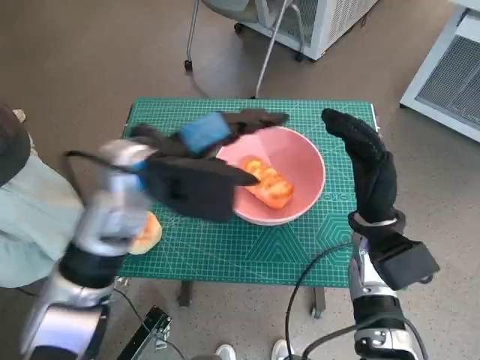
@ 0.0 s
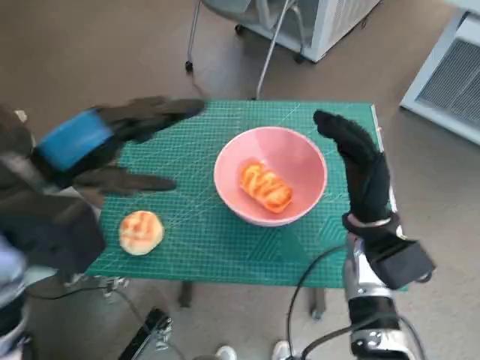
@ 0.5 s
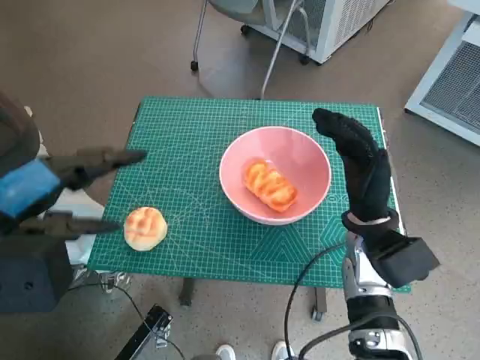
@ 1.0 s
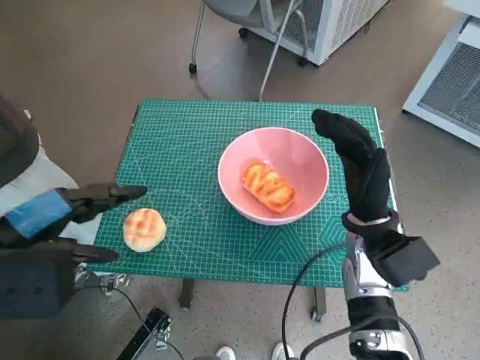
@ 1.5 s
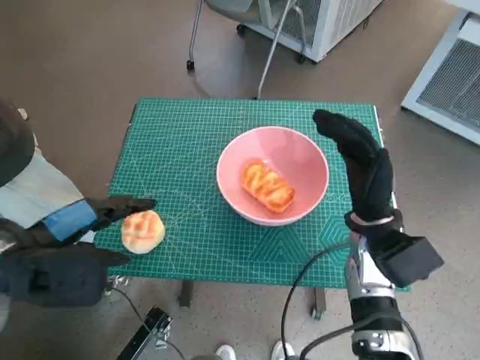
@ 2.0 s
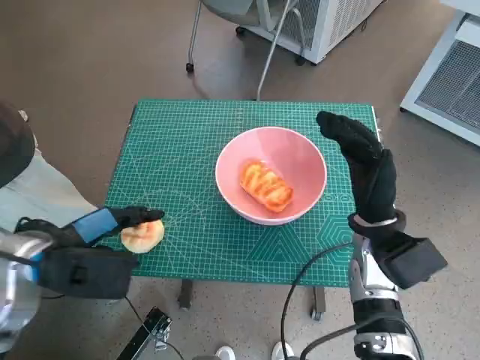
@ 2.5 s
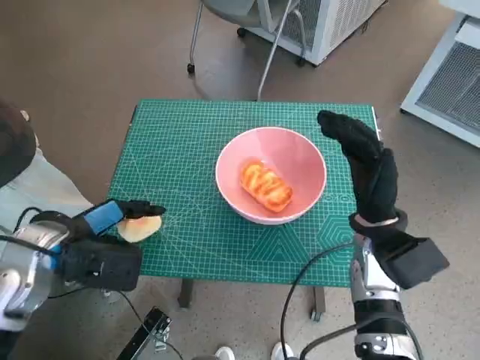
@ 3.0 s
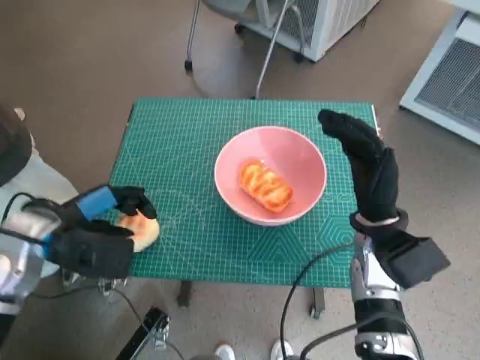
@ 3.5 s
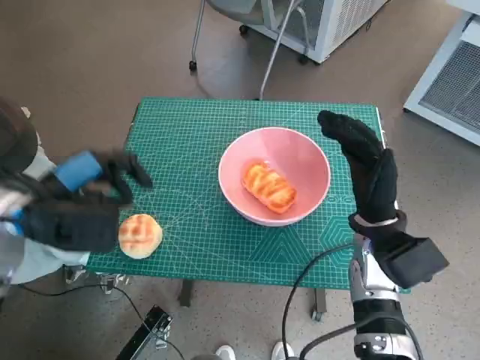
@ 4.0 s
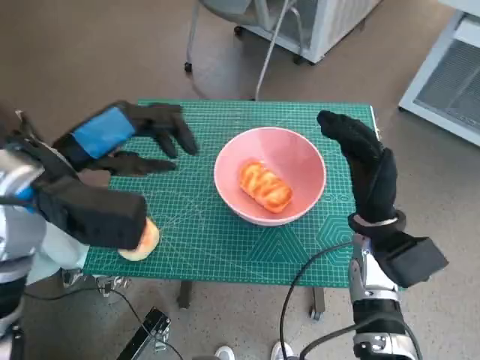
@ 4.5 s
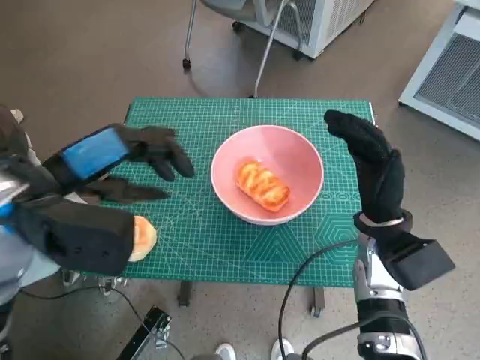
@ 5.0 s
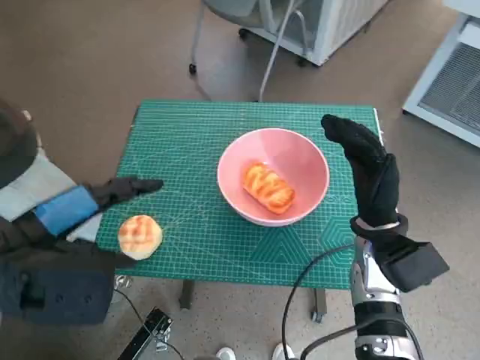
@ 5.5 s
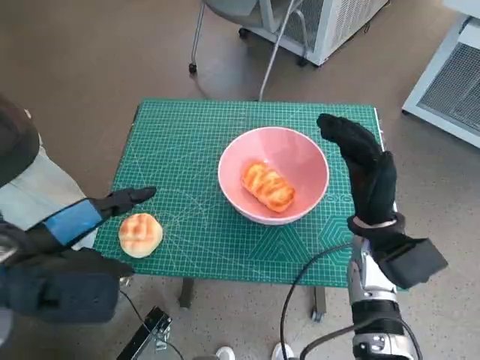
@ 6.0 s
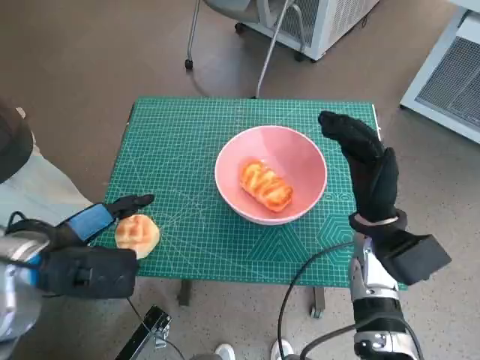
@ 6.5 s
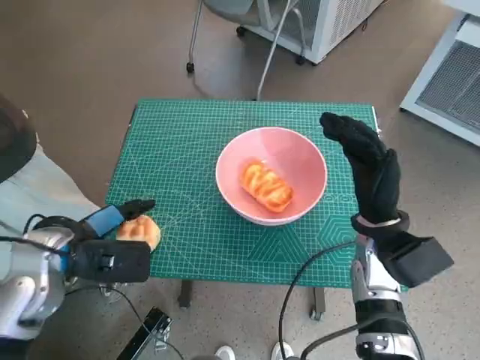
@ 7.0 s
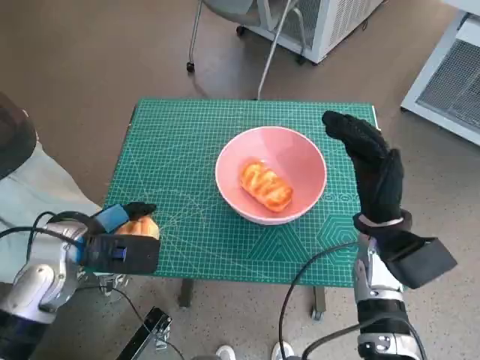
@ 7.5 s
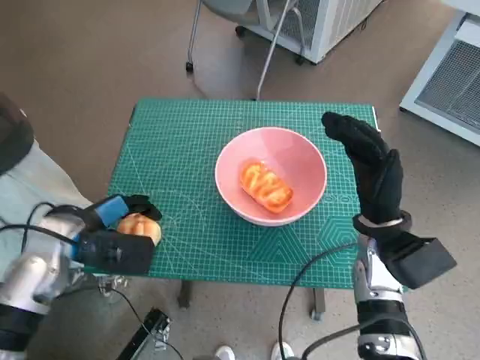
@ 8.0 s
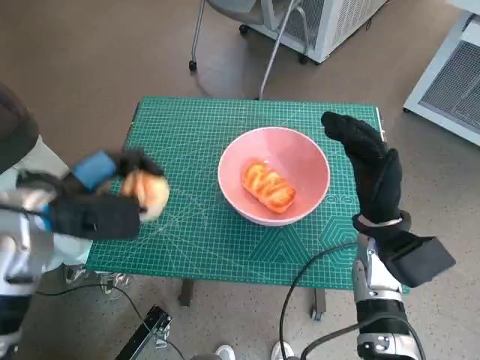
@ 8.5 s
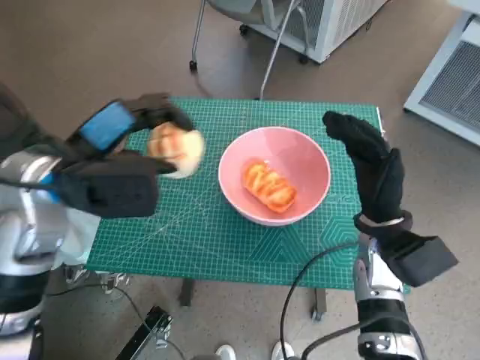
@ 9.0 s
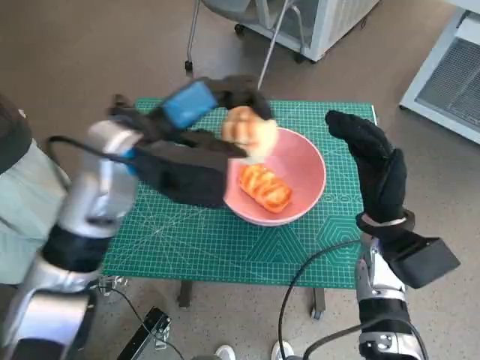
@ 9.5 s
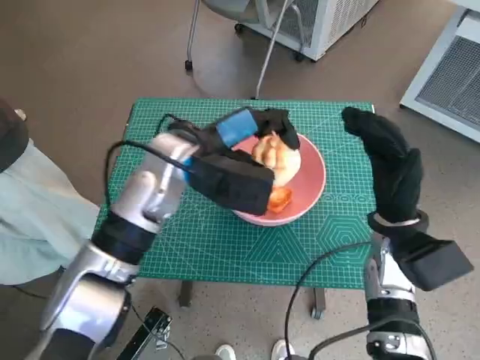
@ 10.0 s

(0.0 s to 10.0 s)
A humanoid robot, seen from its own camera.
Task of the whole recording: Push the bowl to the center of the table and put the bread into the bowl.
Step, 0.5 s - 7.5 s: Grasp the round bread with left hand.
0.0 s - 2.0 s: The left hand moves to the left and backward, some 15 cm.
2.0 s - 4.0 s: The left hand heads forward, covering about 5 cm.
4.0 s - 6.0 s: The left hand heads backward, covering approximately 5 cm.
6.0 s - 8.0 s: The left hand travels downward and forward by roughly 15 cm.
8.0 s - 10.0 s: The left hand goes some 20 cm to the right, upward and forward.

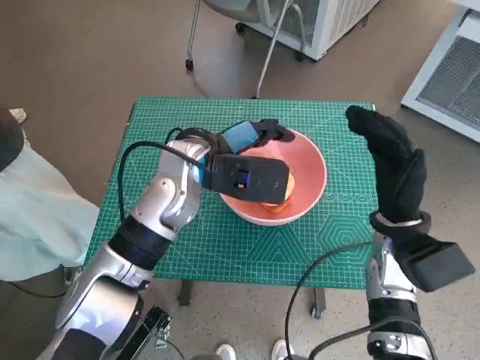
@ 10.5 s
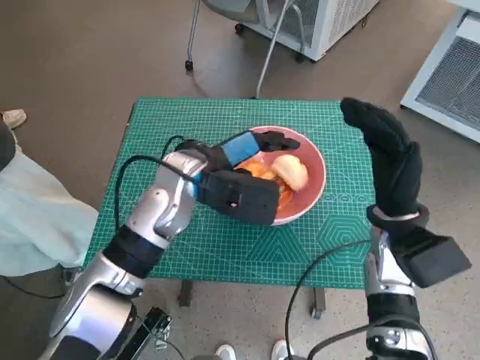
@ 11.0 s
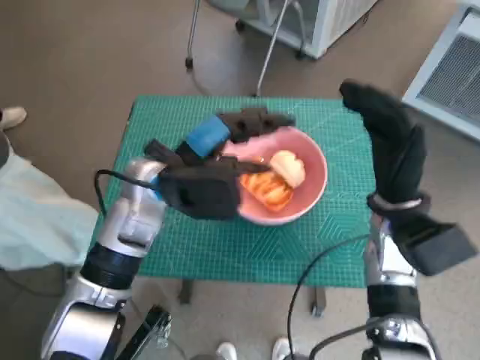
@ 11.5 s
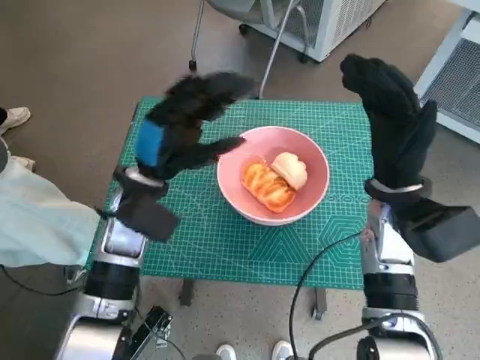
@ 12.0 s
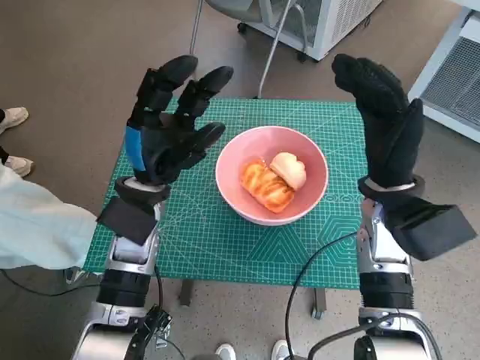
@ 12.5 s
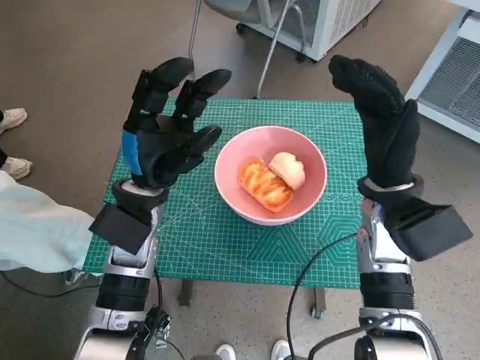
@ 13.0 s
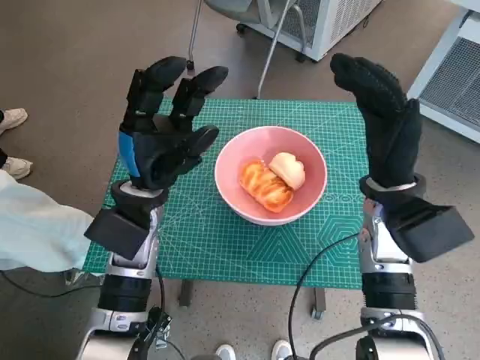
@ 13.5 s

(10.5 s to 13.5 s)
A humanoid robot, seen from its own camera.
Task of the whole recording: Push the bowl to the center of the table and put the bread into the bowl.
10.5 s - 12.0 s: The right hand ends up some 5 cm from where it was. The left hand moves to the left, roughly 5 cm.

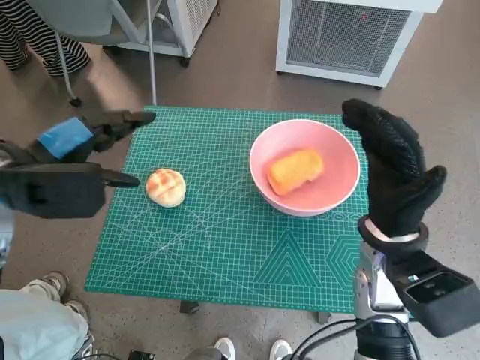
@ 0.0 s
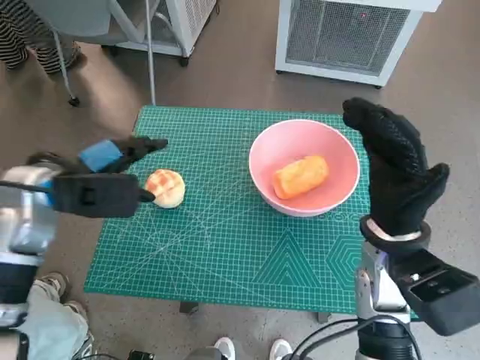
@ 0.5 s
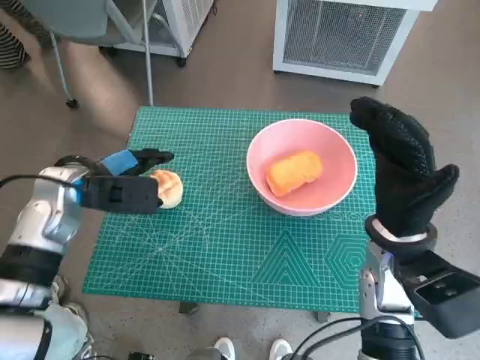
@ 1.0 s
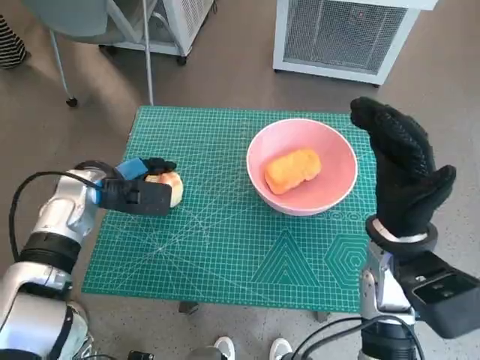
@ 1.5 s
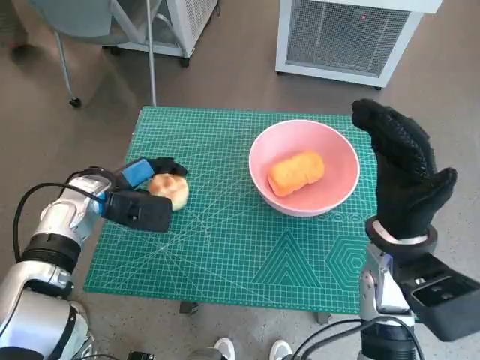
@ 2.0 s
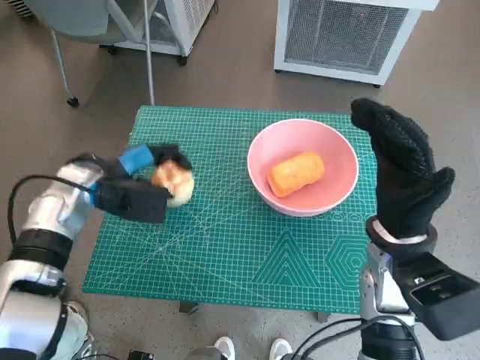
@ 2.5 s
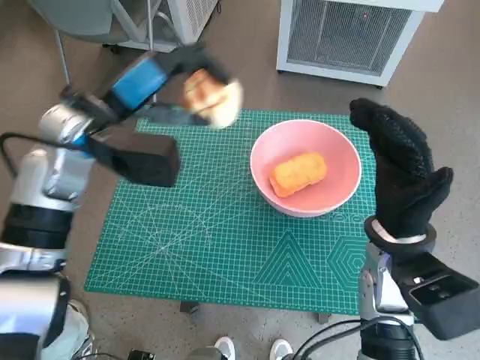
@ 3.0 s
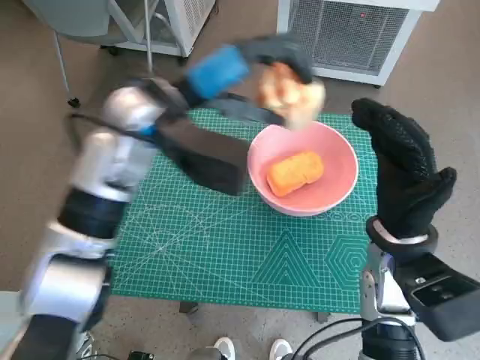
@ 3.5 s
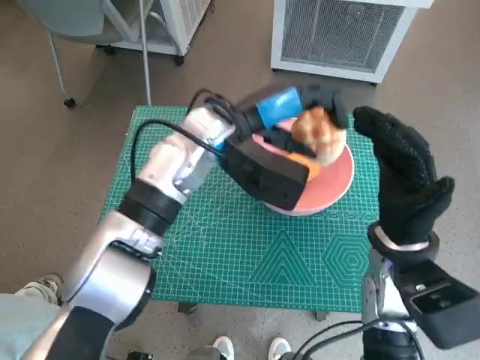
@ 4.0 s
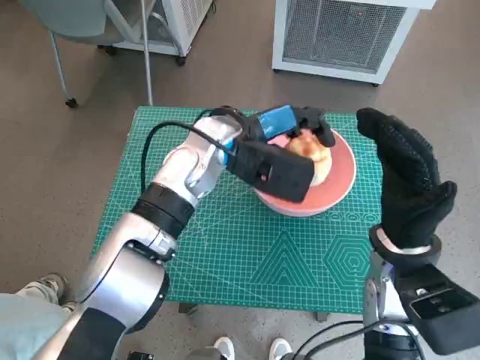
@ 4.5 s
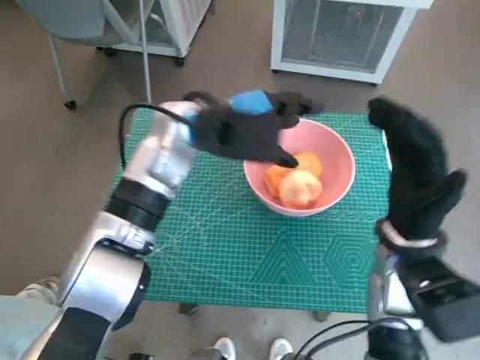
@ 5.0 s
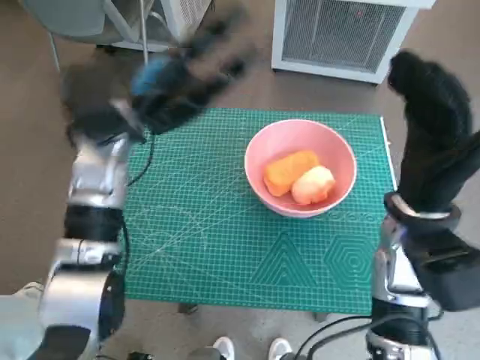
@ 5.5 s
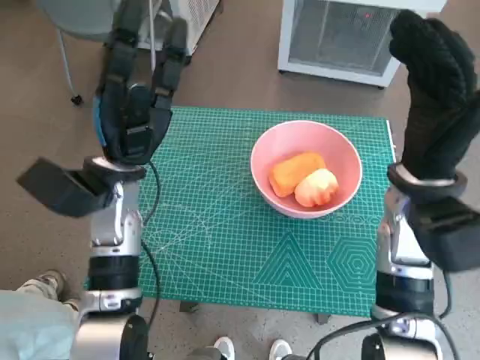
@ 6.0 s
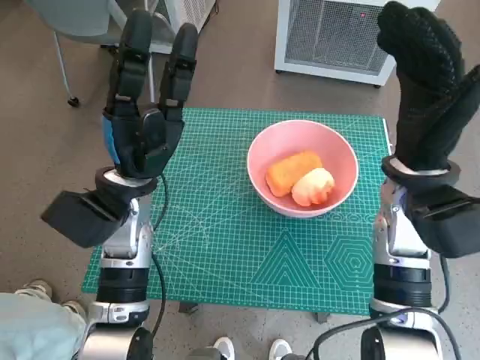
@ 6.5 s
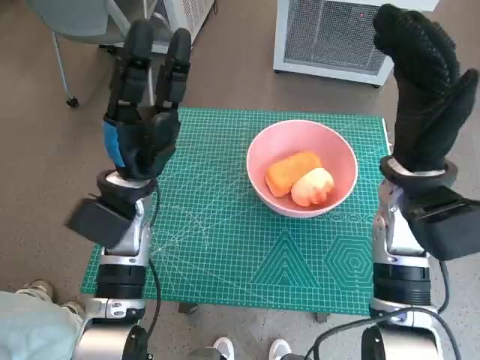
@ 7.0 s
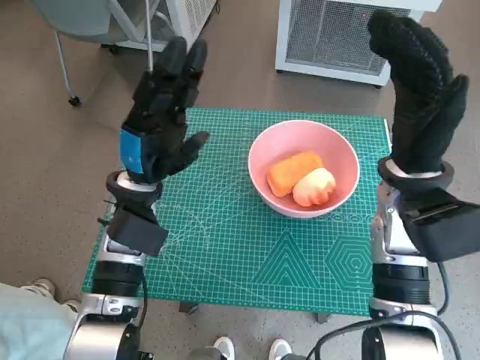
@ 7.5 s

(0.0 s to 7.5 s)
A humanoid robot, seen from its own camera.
Task of the whole recording: Push the bowl to the center of the table and put the bread into the bowl.
Step, 0.0 s - 2.0 s: Grasp the round bread with left hand.
Step, 2.5 s - 5.0 s: Place the round bread in pink bowl with left hand.
0.0 s - 2.0 s: The left hand travels downward and forward by roughly 15 cm.
2.0 s - 4.0 s: The left hand moves to the right and upward, some 20 cm.
4.0 s - 5.5 s: The left hand is displaced to the left by about 10 cm.
5.5 s - 7.5 s: The left hand is displaced downward and backward by some 10 cm.
